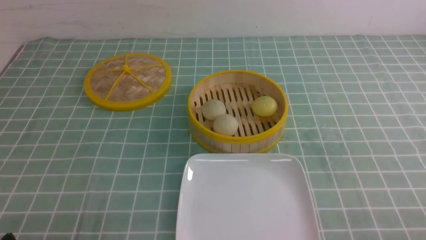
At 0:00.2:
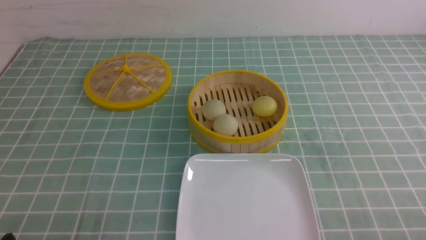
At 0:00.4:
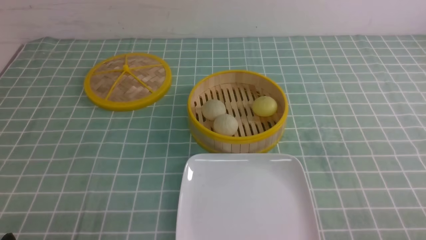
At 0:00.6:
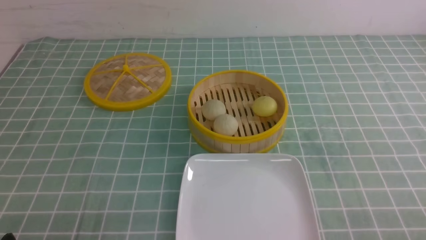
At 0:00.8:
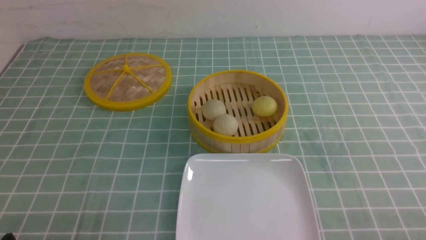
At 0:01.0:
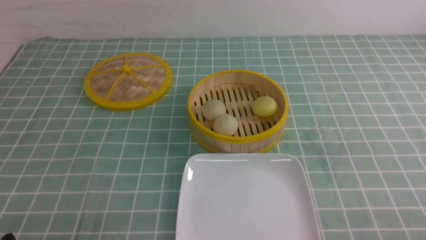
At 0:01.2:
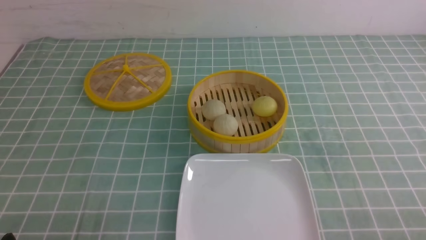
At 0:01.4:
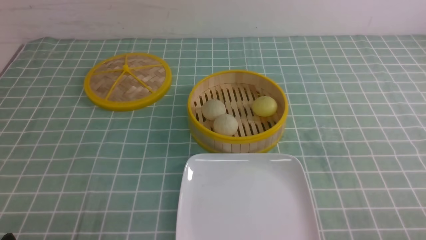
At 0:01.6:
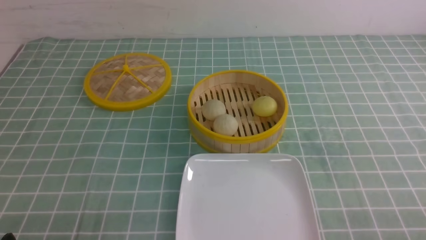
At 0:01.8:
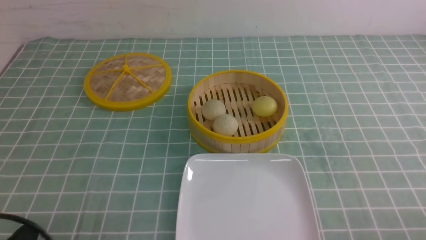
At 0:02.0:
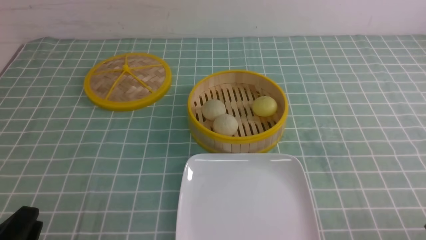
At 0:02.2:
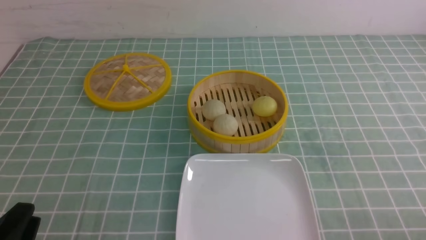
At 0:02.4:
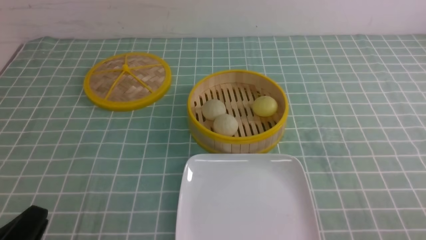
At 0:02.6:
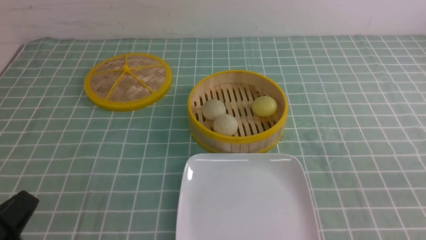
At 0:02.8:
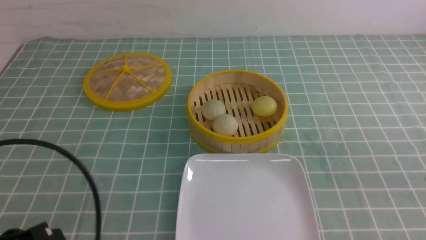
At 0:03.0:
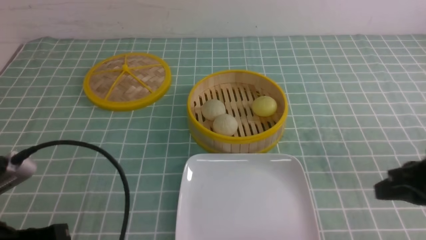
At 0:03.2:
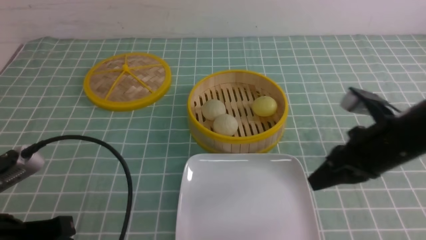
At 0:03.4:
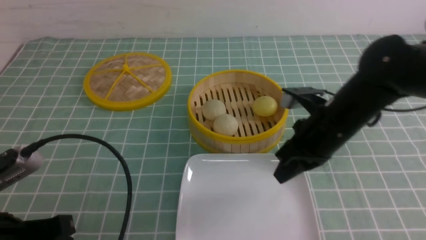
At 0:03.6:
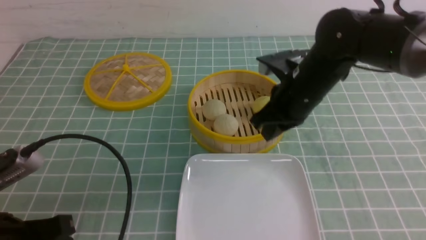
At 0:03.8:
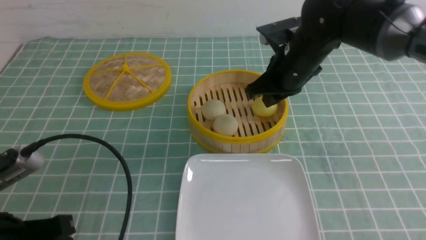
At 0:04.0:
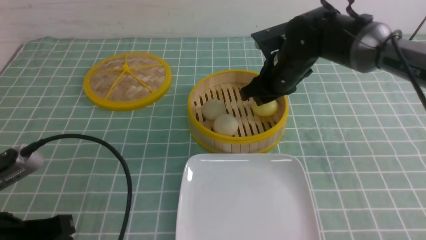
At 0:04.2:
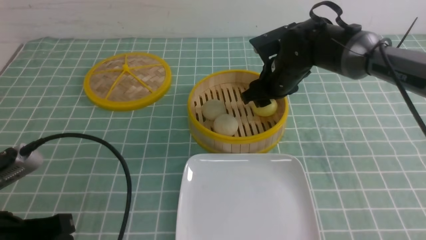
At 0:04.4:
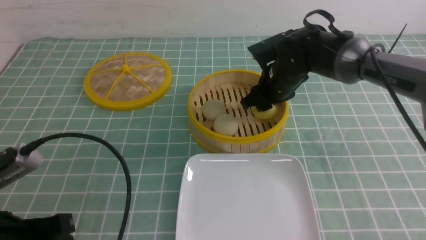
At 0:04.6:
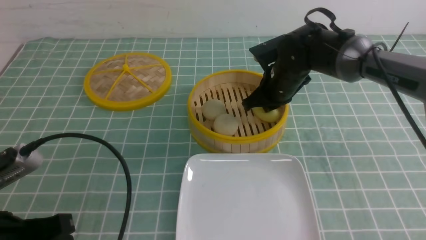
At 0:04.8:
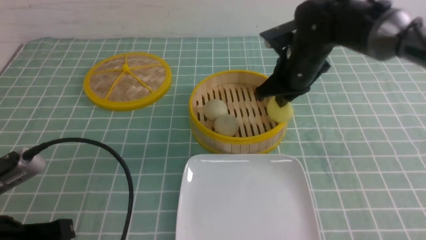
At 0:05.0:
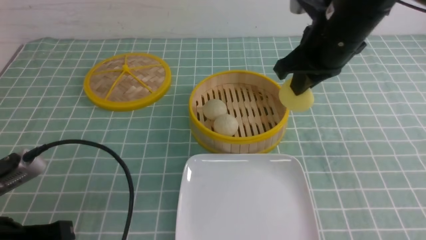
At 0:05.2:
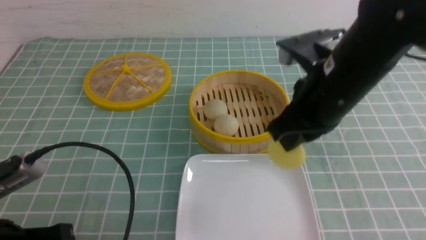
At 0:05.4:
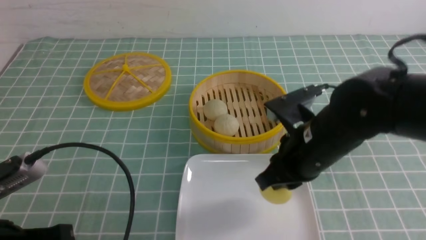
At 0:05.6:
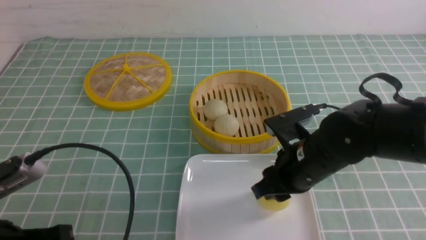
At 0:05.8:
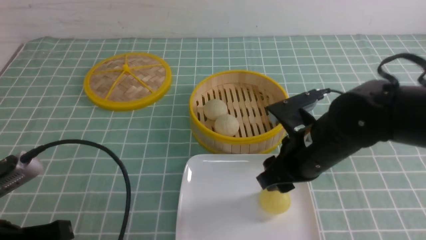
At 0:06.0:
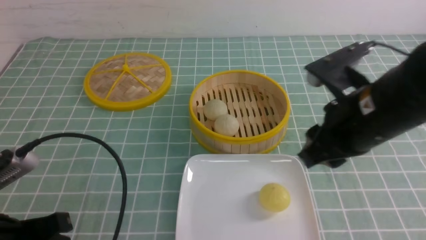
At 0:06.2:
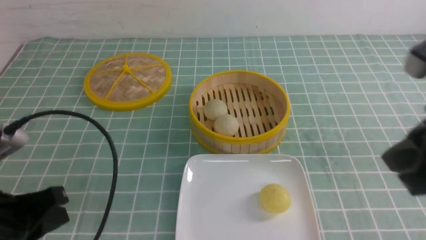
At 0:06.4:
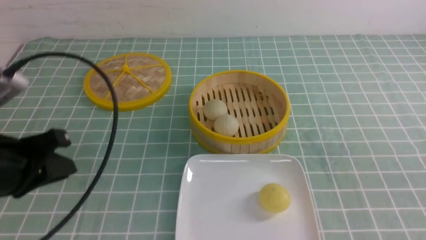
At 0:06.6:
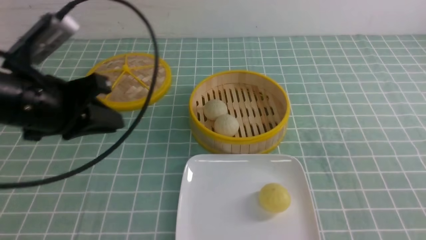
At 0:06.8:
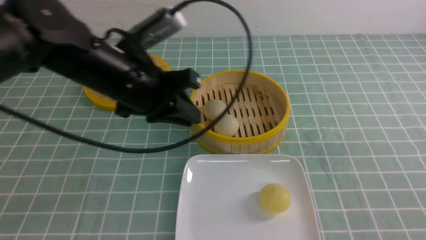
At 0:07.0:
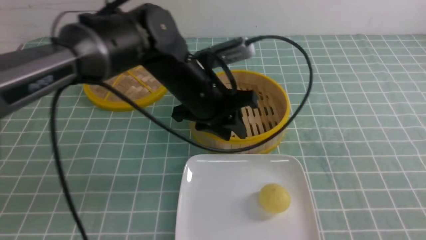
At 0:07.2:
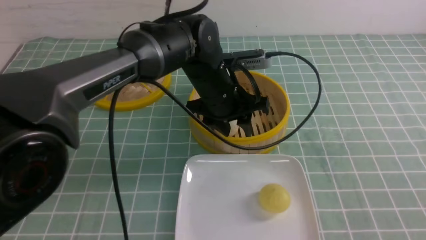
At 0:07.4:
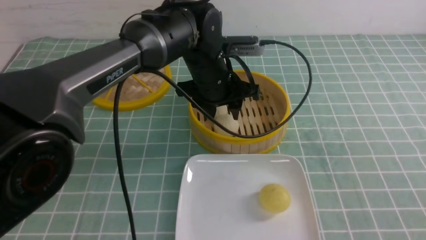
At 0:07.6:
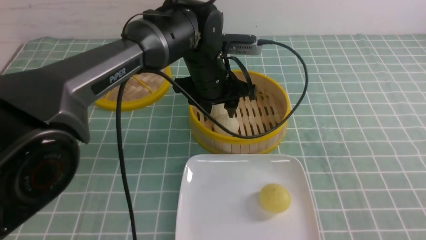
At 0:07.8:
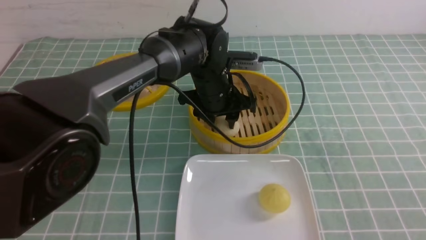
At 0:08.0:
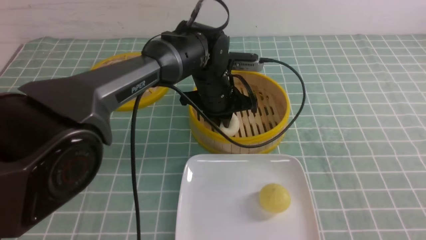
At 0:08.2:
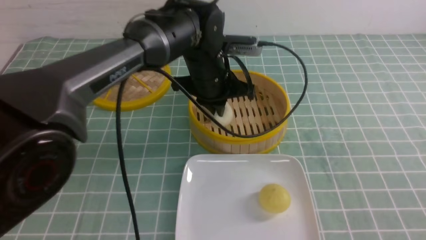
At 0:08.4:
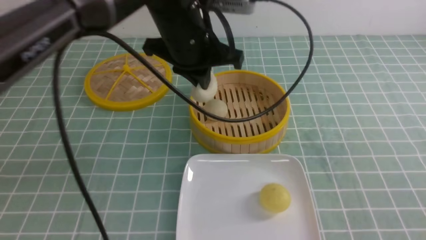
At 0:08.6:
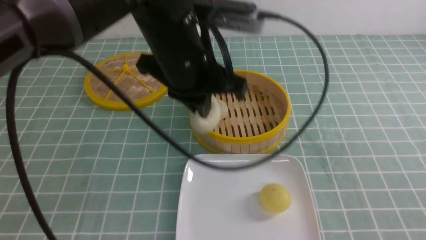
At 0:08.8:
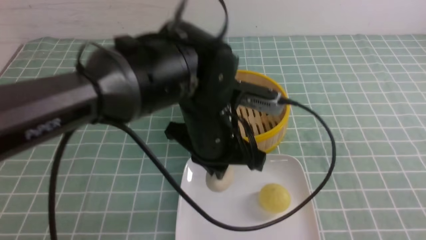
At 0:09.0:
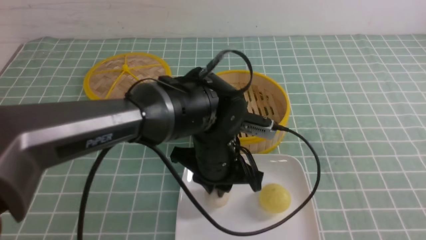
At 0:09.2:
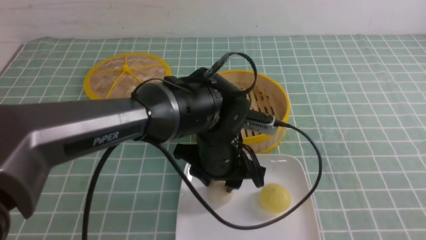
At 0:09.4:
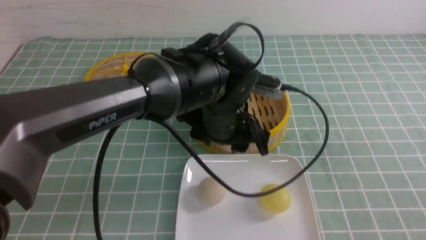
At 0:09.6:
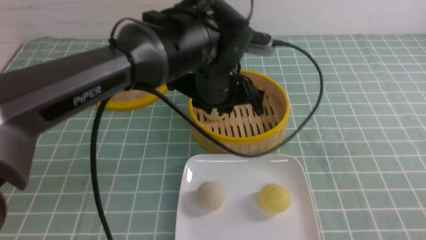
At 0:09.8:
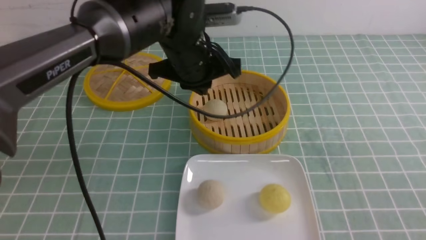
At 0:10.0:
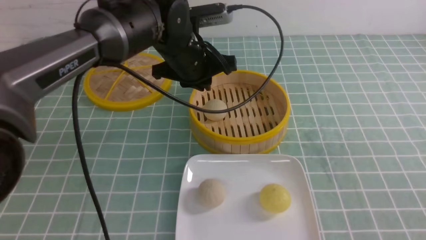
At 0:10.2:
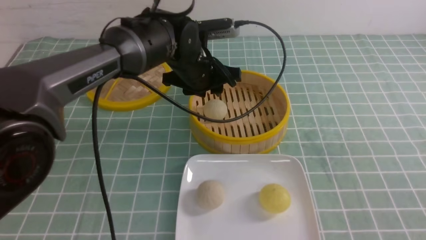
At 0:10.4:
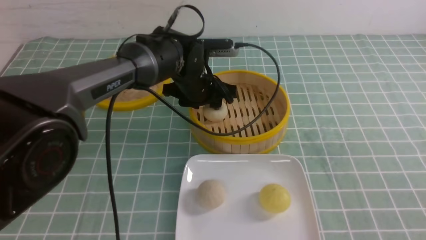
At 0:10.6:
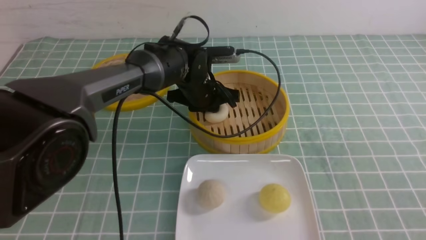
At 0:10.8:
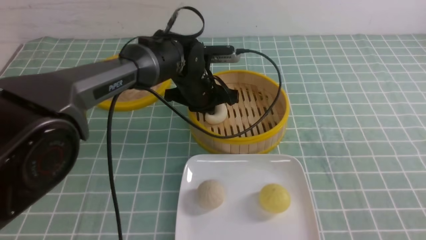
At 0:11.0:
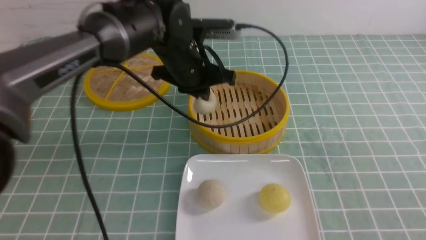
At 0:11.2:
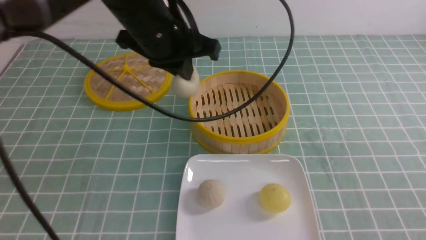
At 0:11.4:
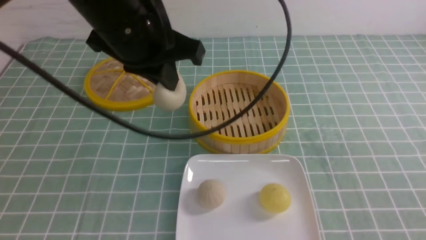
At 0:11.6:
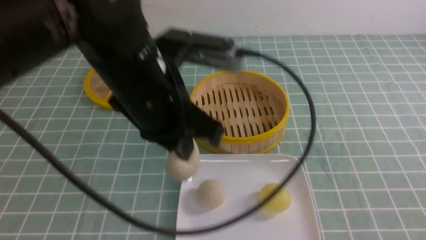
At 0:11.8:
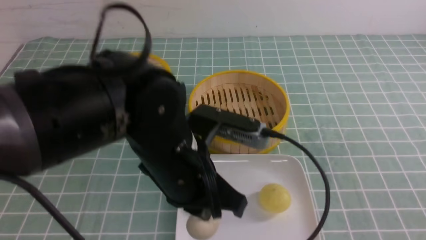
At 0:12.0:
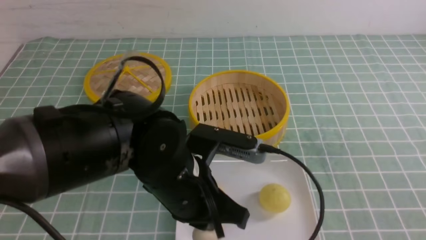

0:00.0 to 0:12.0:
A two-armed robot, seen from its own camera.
Step, 0:00.0 to 0:04.6: use the right arm to grab the steamed stuffed bun that is closest to it.
Step, 0:04.8 to 0:05.8: use the right arm to put the steamed stuffed bun into the plate.
Step, 0:06.0 to 0:08.0: use the left arm to grab the steamed stuffed bun that is closest to it.
Step, 0:08.2 to 0:09.2: use the left arm to put the steamed stuffed bun into the plate.
Step, 0:09.4 to 0:10.6: use the left arm to grab the steamed stuffed bun that is closest to it.
0:01.6 to 0:03.0: The right gripper goes about 15 cm forward and upward, and closes, while the left gripper heads upward, covering some 10 cm, and closes up.
0:03.0 to 0:04.4: The right gripper shifts about 30 cm forward and to the left, and opens up.
0:04.4 to 0:06.0: The right gripper goes about 25 cm backward and upward, and closes, then reopens.
0:06.0 to 0:07.6: The right gripper moves backward and to the right, some 20 cm, and closes its fingers; the left gripper is displaced forward and to the right by roughly 35 cm, and opens.
0:07.6 to 0:09.0: The left gripper heads backward, covering some 10 cm, and closes.
0:09.0 to 0:10.4: The left gripper shifts approximately 15 cm forward.
0:10.4 to 0:12.0: The left gripper moves backward, about 20 cm, and closes.

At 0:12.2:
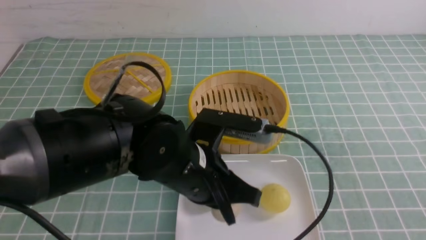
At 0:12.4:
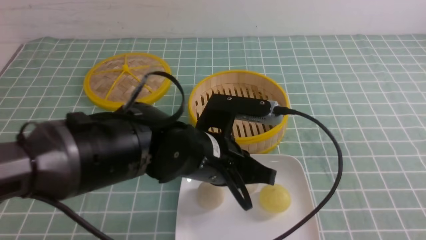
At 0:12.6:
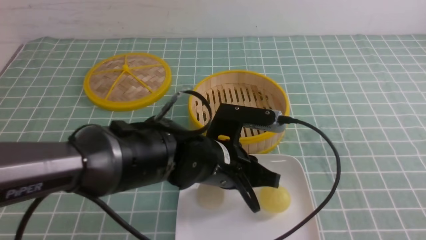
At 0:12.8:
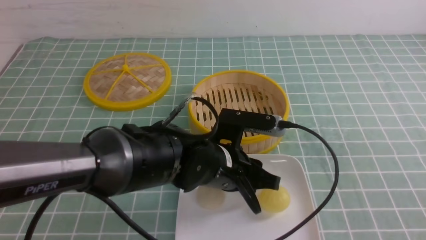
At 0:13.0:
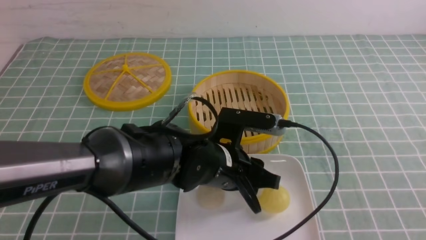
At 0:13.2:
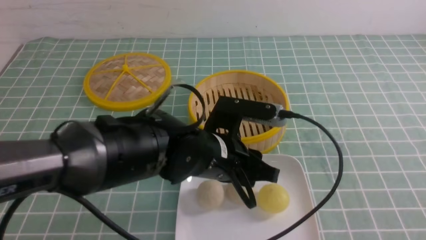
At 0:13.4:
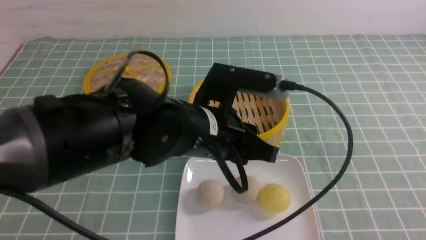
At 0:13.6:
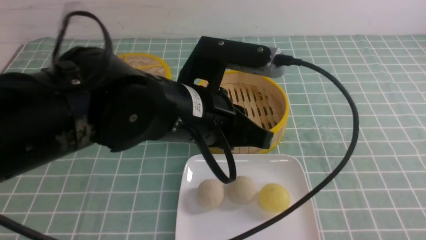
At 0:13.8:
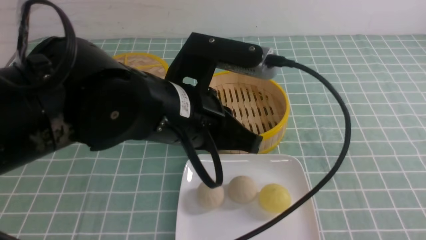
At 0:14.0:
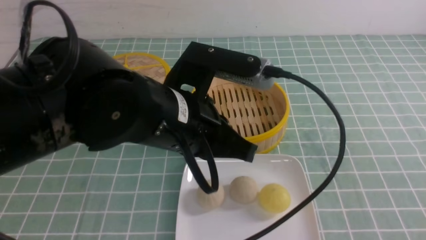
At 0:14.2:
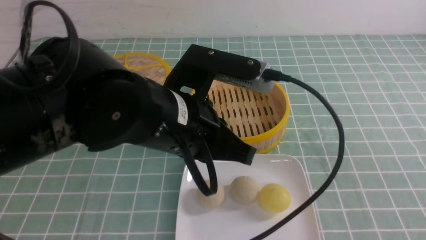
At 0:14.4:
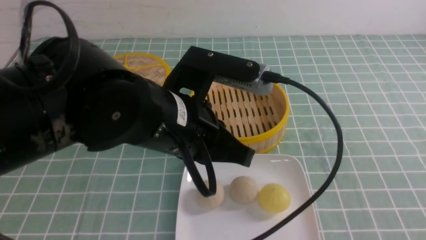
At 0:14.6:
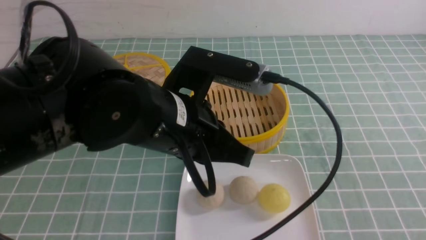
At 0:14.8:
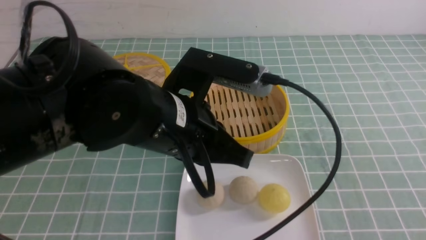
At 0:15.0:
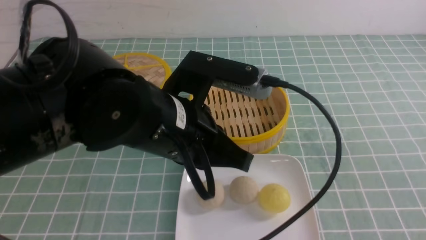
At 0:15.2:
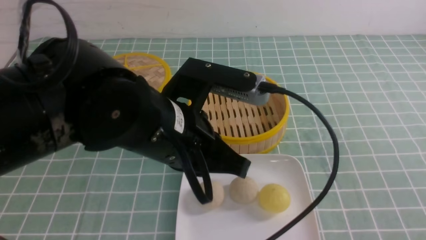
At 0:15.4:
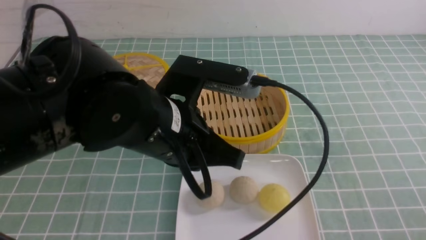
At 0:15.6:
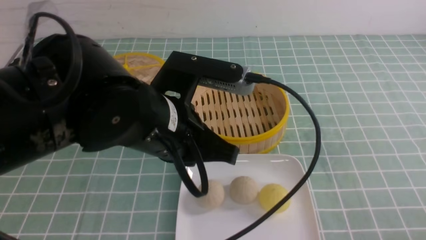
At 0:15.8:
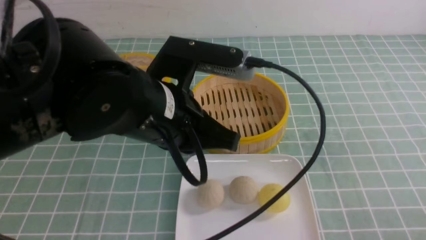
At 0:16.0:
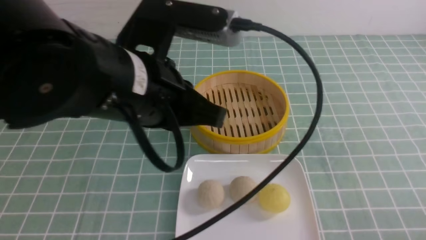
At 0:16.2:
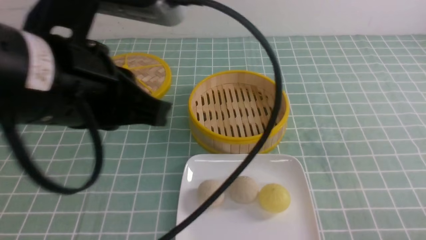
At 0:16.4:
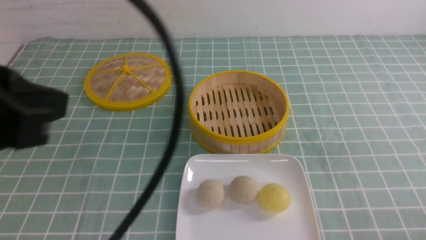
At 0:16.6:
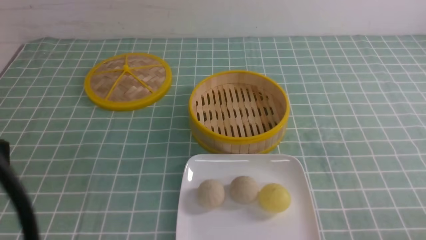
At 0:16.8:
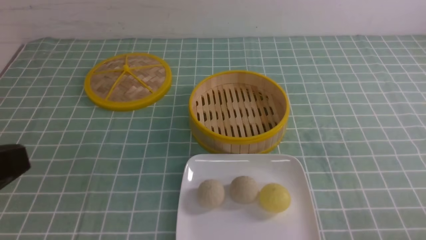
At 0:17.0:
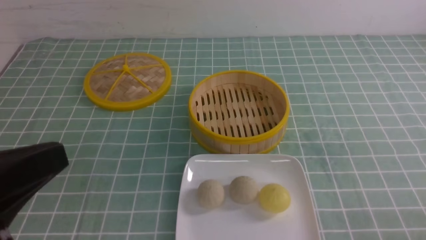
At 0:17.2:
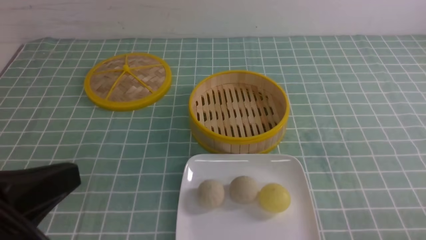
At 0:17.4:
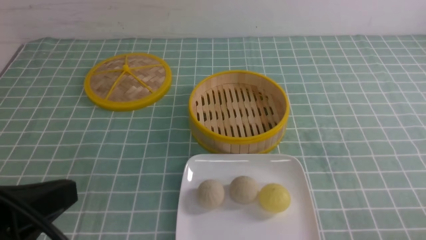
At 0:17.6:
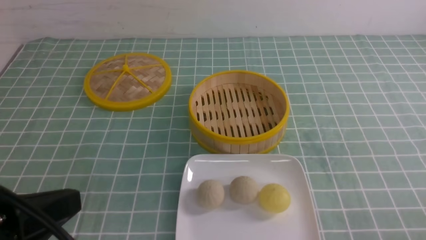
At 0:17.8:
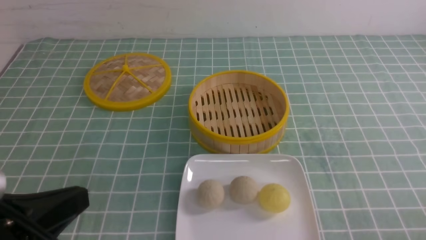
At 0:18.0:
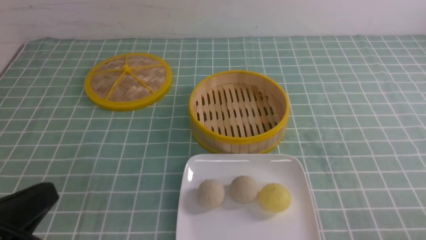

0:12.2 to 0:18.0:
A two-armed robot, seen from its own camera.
0:12.2 to 0:13.6: The right gripper heads backward and upward, covering about 10 cm; the left gripper heads upward, covering roughly 5 cm, and opens and closes again.
0:13.6 to 0:15.0: The right gripper shifts some 5 cm downward.
0:15.0 to 0:16.6: The left gripper travels to the left, backward and upward by some 25 cm; the right gripper is displaced downward by some 10 cm.
0:16.6 to 0:18.0: The left gripper goes about 15 cm downward.
